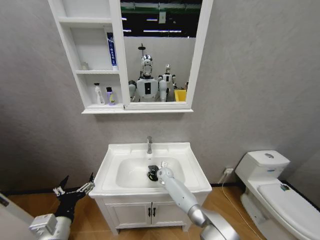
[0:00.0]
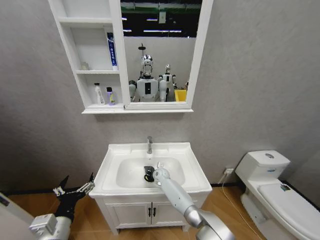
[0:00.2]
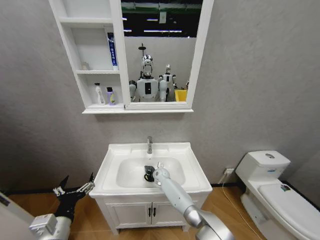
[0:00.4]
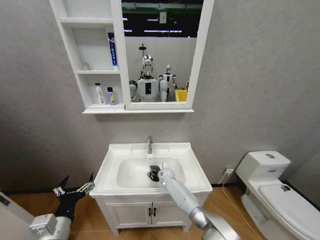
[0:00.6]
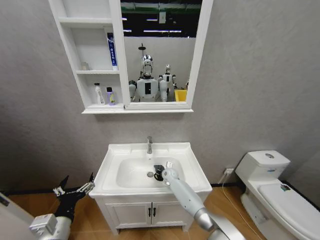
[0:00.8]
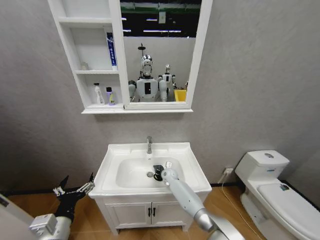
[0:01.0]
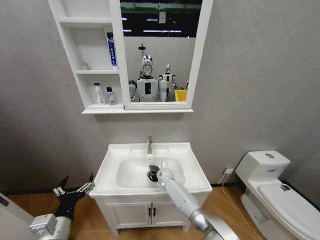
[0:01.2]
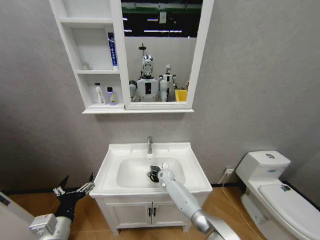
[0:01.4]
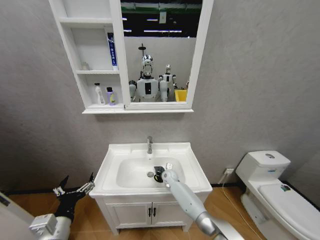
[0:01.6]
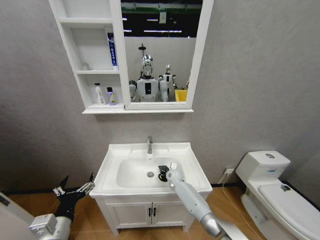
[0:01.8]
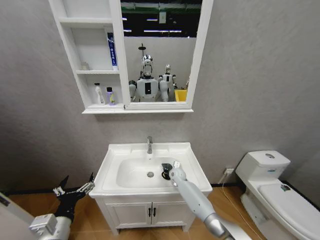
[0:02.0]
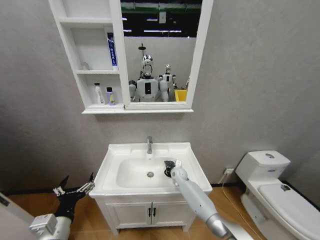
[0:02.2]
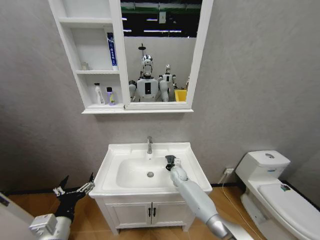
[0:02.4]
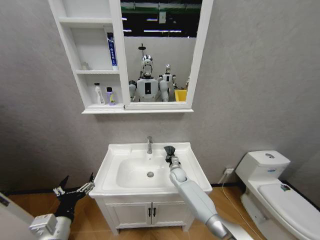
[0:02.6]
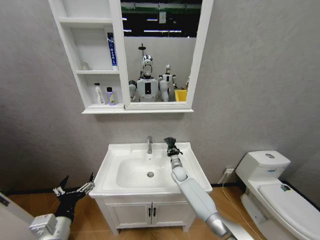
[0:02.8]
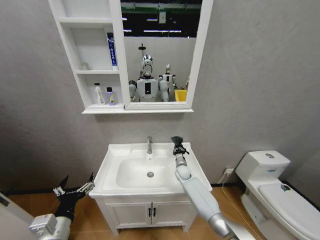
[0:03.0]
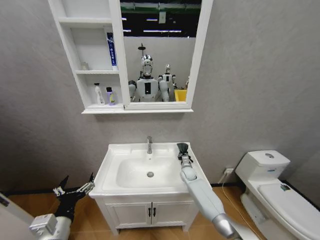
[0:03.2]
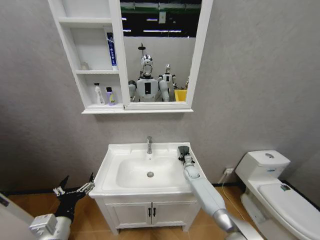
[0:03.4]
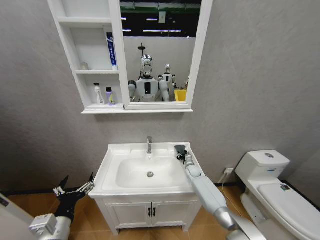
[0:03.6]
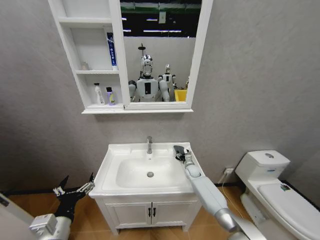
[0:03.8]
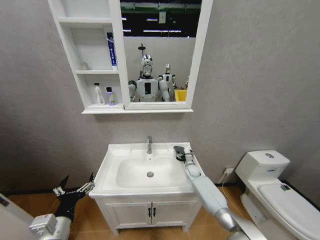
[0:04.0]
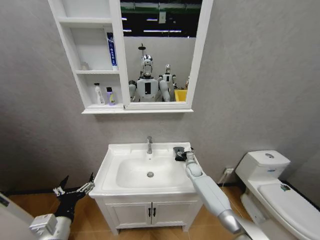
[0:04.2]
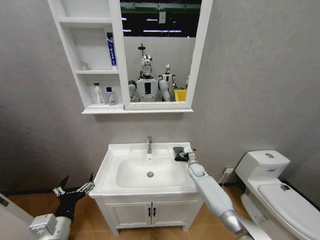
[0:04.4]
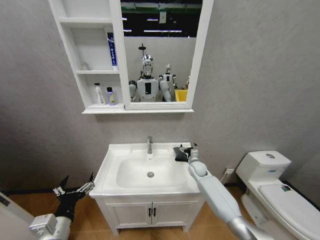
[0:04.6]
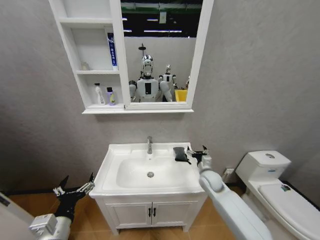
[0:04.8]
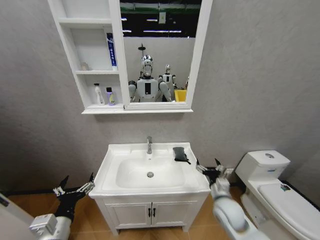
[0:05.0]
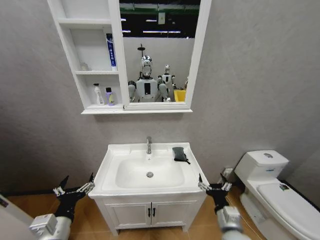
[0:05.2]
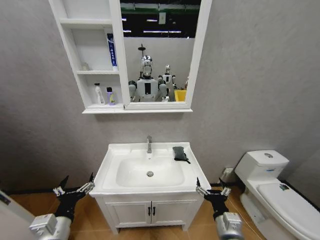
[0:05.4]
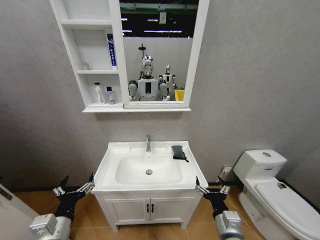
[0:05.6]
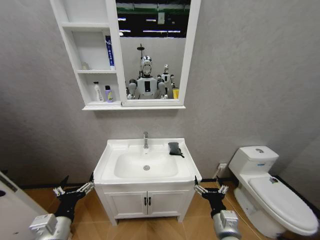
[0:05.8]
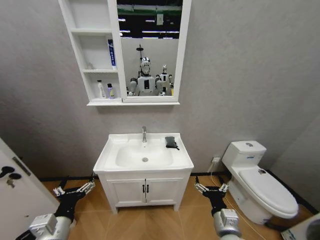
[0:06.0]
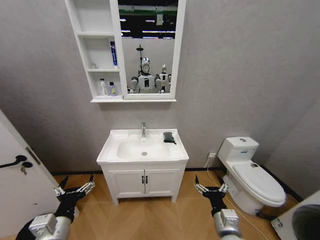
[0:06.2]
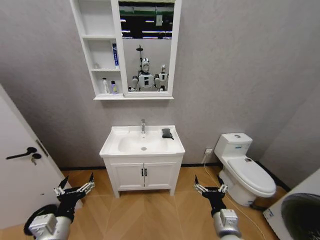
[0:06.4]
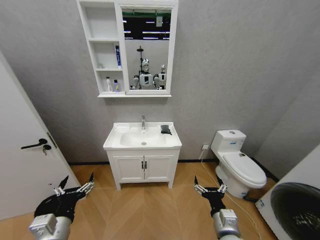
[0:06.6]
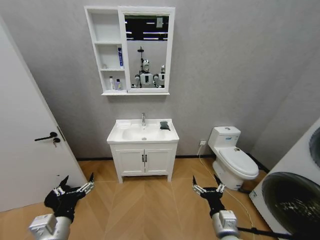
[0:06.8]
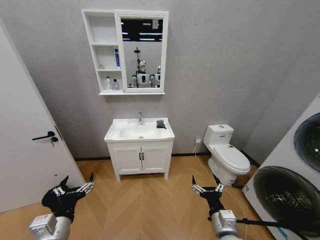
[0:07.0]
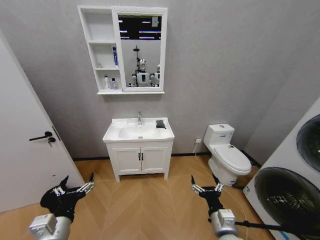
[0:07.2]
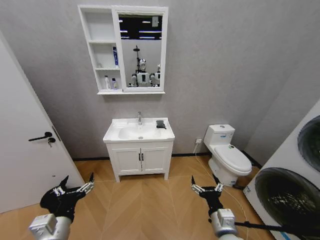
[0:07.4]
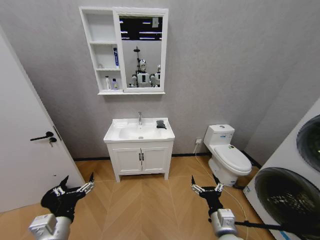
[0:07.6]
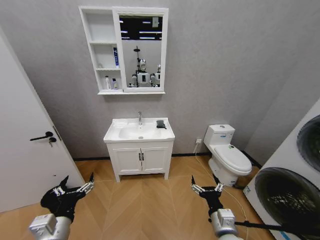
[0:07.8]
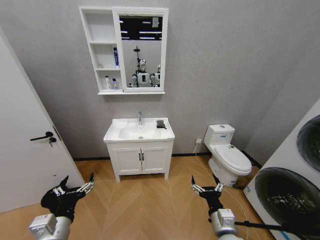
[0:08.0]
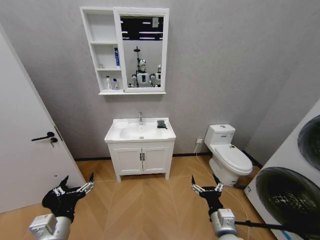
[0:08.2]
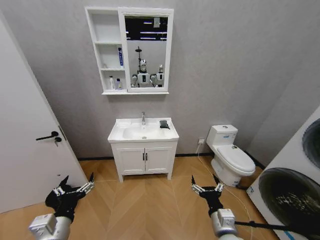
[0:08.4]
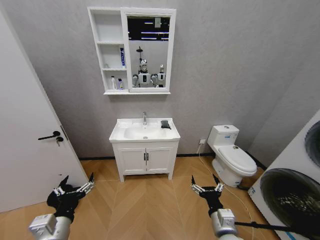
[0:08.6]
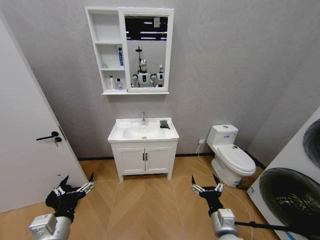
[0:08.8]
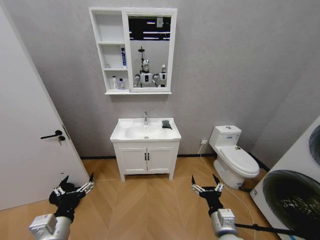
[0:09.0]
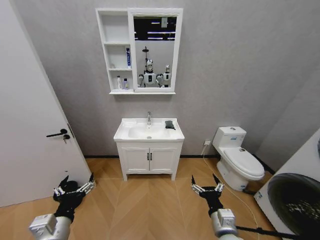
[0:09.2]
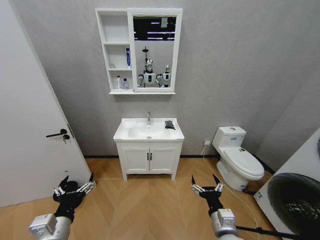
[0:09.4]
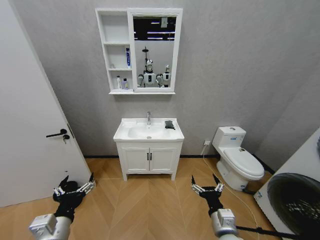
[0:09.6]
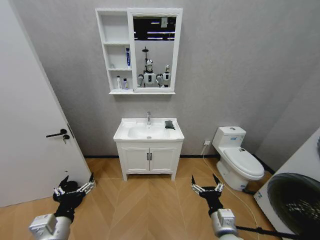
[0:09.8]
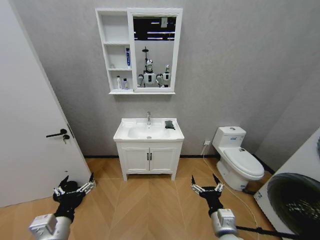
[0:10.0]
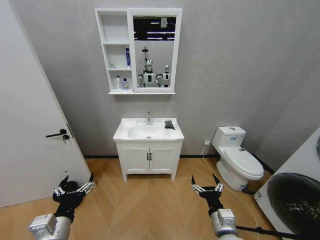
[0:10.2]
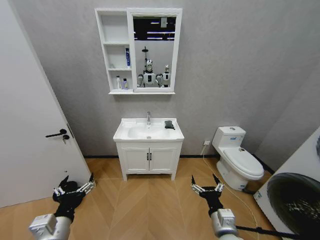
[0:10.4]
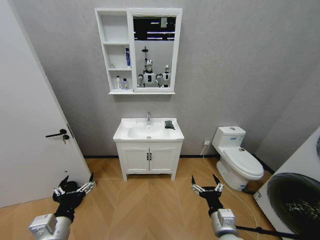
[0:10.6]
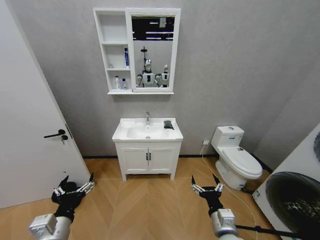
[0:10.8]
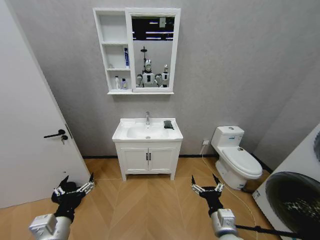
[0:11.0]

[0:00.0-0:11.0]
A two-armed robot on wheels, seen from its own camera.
Task of the whole recording: Move facial cleanser and shampoo from washbasin to cabinet, then wipe washbasin with towel.
0:00.0 to 0:01.6: There are only small adjustments of the grippers.
0:01.6 to 0:03.2: The right gripper heads to the right, covering about 10 cm.
0:03.2 to 0:04.8: The right gripper moves upward, backward and to the right, approximately 15 cm, and opens its fingers.
0:04.8 to 0:06.2: The right gripper travels backward by approximately 25 cm.
0:09.4 to 0:11.0: Neither gripper changes place.

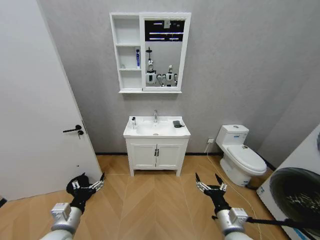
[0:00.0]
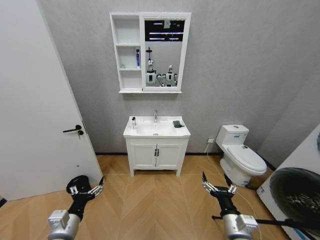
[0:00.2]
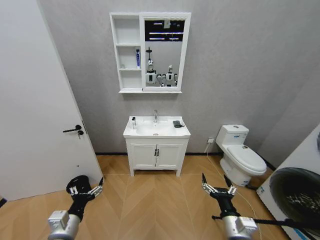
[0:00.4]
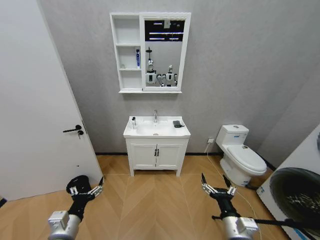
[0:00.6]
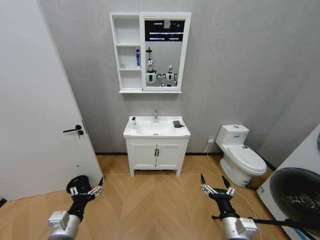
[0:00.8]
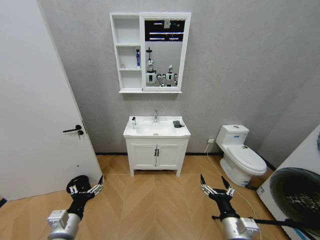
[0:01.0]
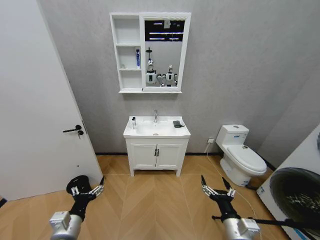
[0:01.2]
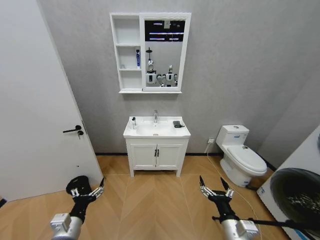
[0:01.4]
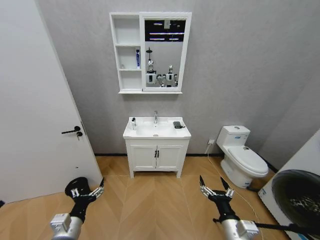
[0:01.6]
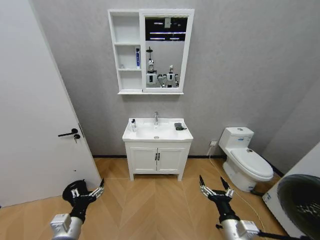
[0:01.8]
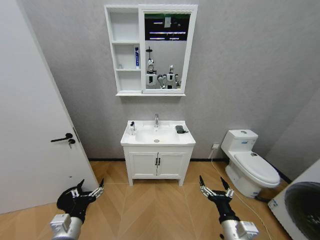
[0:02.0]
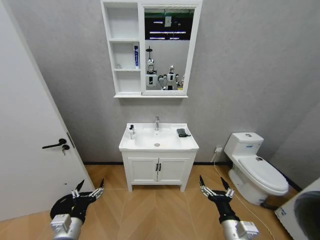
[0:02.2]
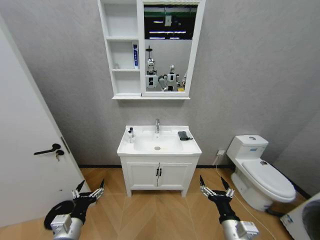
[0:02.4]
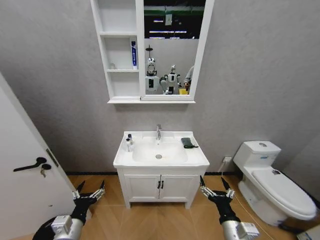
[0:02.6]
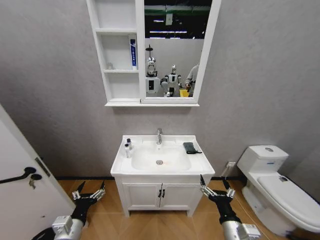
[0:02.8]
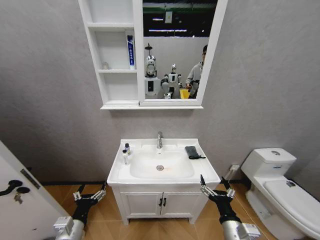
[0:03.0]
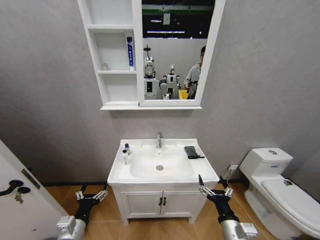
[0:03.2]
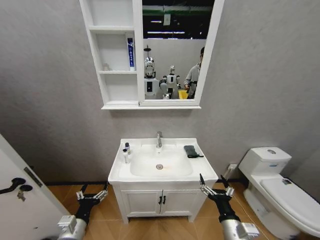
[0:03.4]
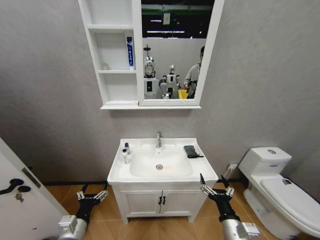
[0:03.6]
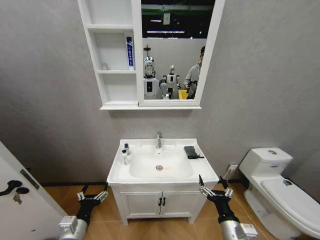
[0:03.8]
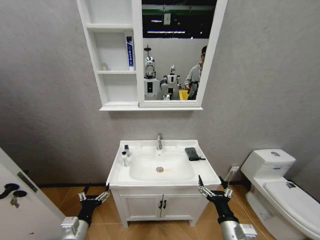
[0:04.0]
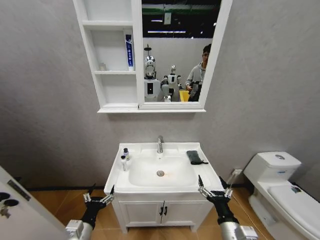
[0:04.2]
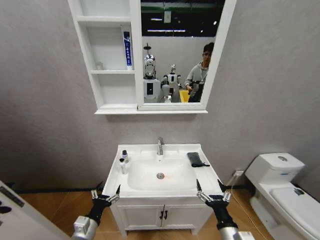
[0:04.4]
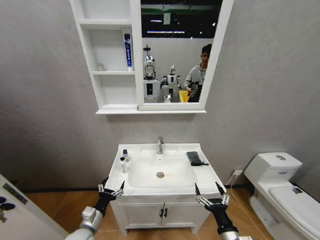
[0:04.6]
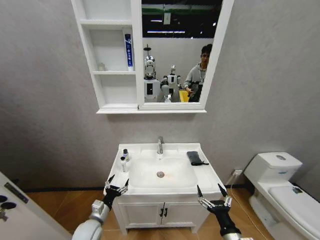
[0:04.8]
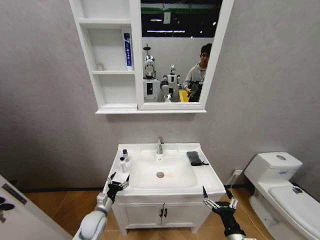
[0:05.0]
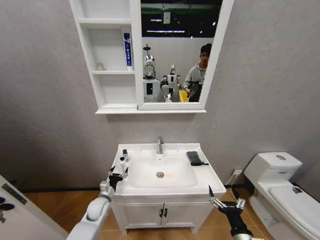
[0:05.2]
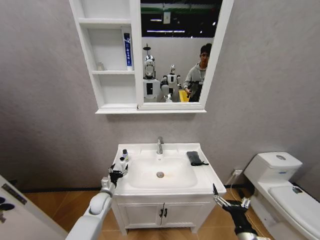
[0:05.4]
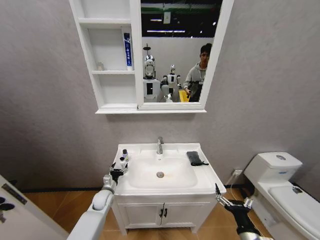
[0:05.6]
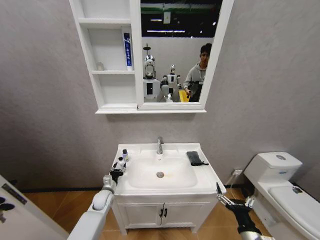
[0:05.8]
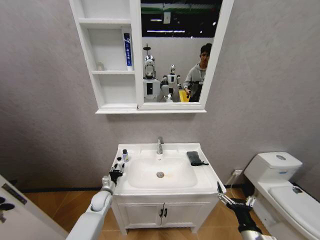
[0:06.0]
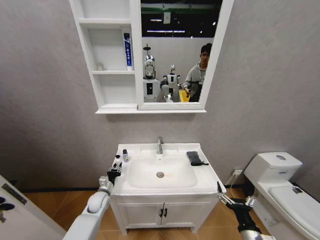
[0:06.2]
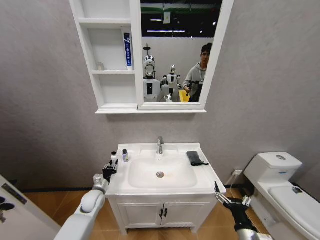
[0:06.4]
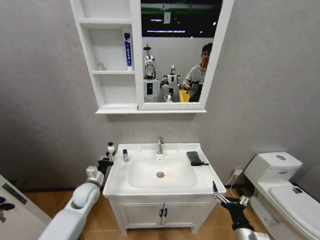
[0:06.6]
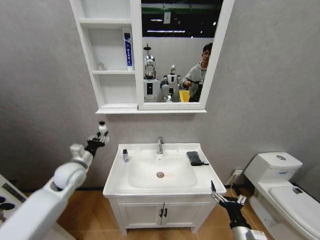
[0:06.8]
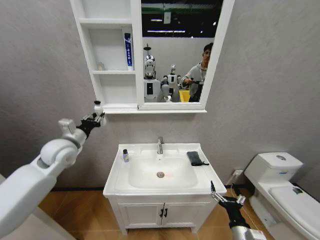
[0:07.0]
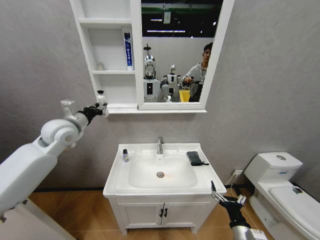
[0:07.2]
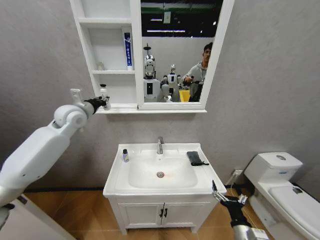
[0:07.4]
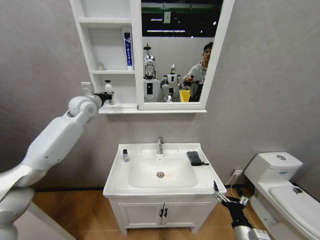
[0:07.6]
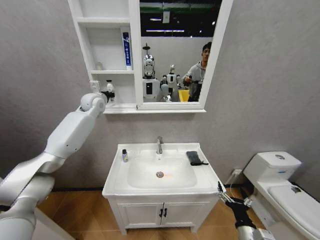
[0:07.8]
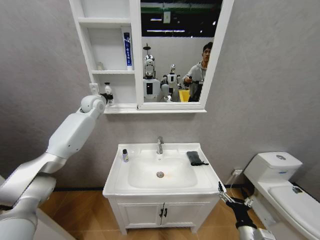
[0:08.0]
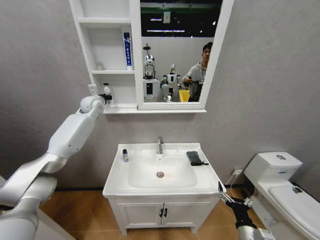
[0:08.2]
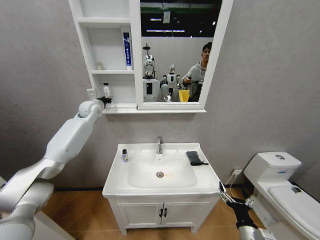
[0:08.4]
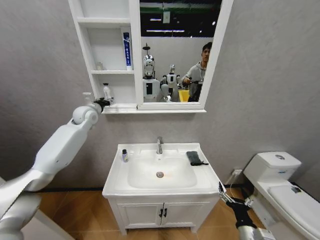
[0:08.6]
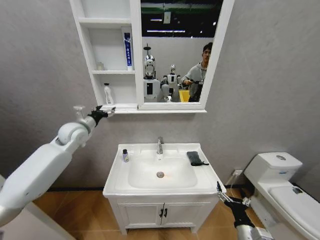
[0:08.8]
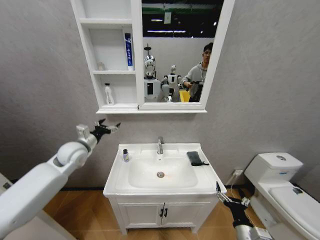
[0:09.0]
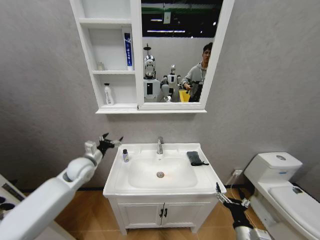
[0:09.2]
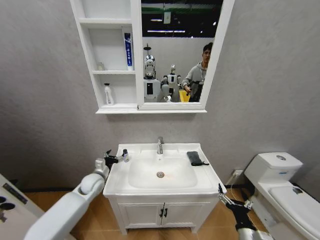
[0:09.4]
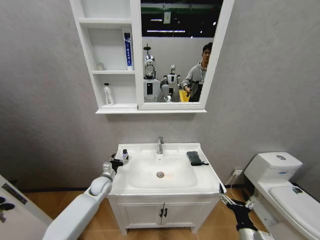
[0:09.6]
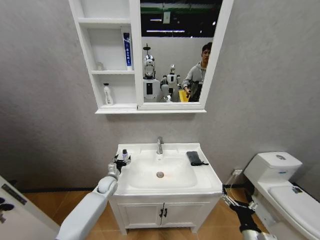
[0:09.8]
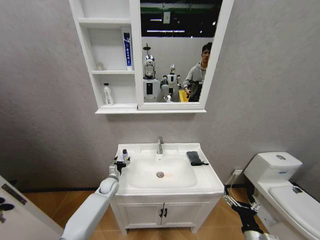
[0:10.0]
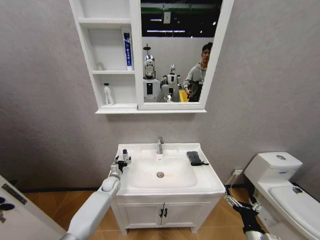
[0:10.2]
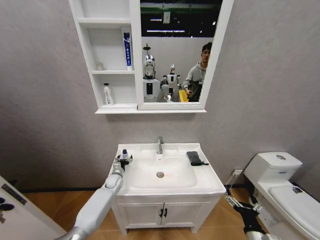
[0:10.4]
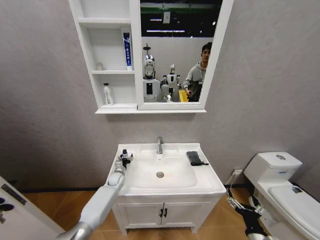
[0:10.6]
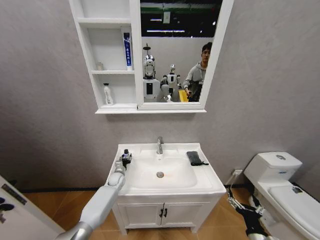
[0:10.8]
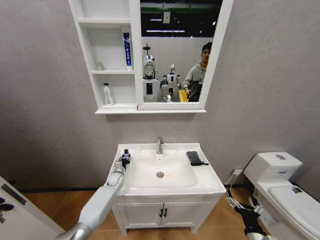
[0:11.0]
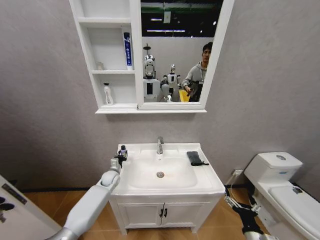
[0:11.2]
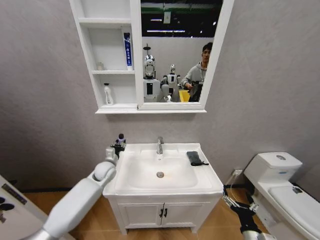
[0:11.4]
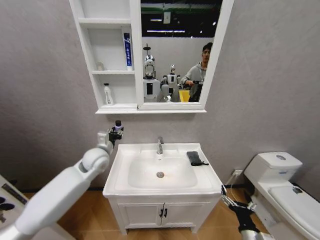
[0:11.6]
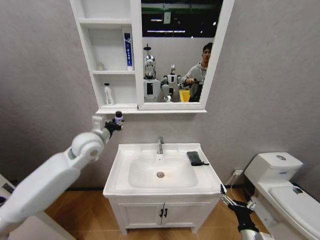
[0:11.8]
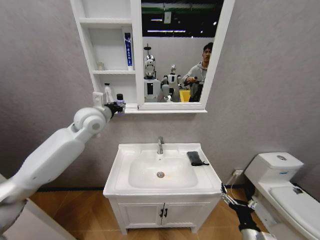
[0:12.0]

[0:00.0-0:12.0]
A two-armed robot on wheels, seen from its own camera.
Task of the whole recording: Move facial cleanser and shampoo from washbasin to cabinet, then wipe washbasin with towel.
0:03.0 to 0:04.4: The left gripper shifts by approximately 5 cm.
0:04.4 to 0:06.0: The right gripper shifts roughly 5 cm to the right; the left gripper moves forward and downward, some 20 cm, and closes.
0:06.0 to 0:07.6: The left gripper travels upward by roughly 40 cm.
0:07.6 to 0:09.0: The left gripper is displaced downward and backward by about 20 cm, and opens up.
0:09.0 to 0:10.4: The left gripper heads downward, covering some 30 cm.
0:10.4 to 0:12.0: The left gripper goes roughly 40 cm upward, and closes its fingers.
